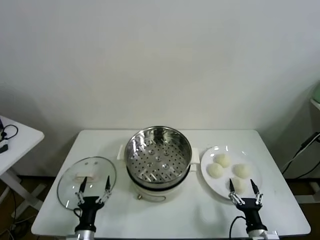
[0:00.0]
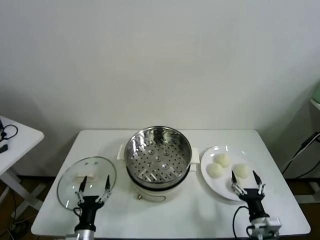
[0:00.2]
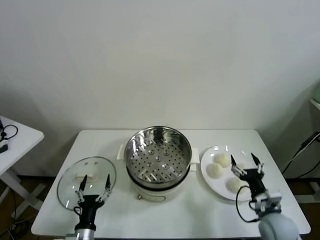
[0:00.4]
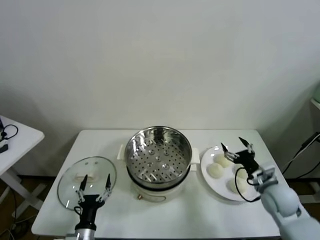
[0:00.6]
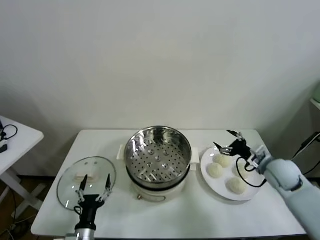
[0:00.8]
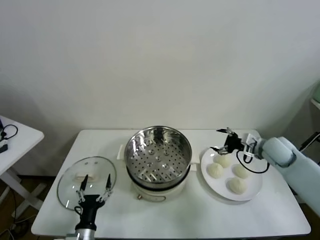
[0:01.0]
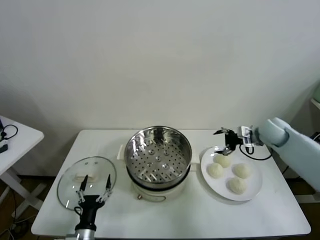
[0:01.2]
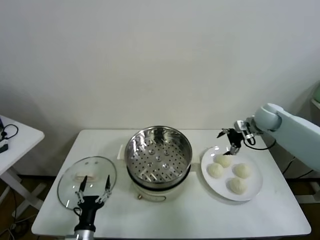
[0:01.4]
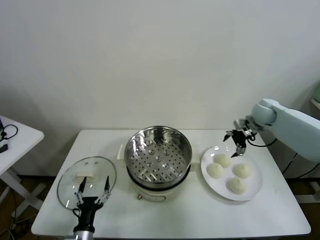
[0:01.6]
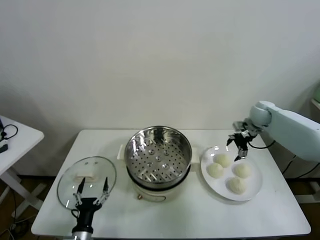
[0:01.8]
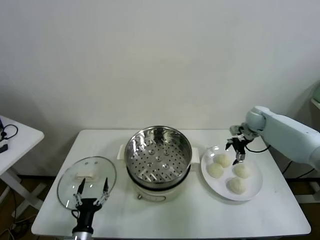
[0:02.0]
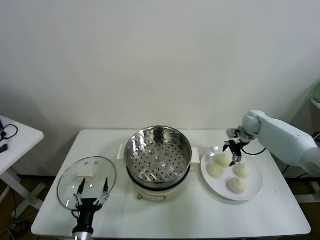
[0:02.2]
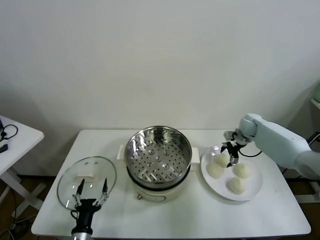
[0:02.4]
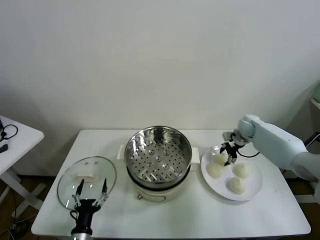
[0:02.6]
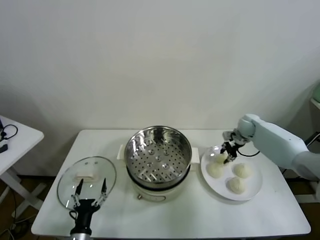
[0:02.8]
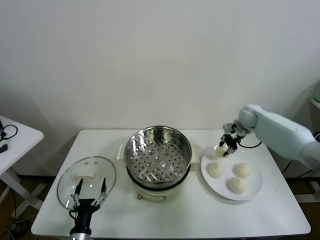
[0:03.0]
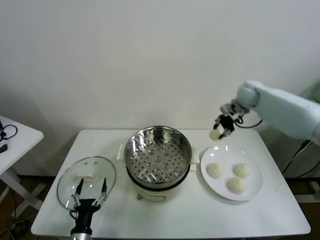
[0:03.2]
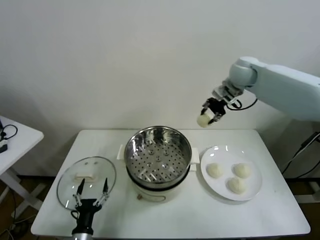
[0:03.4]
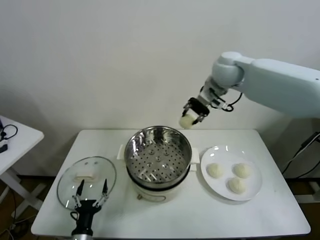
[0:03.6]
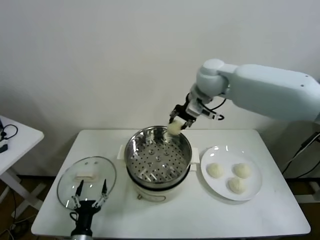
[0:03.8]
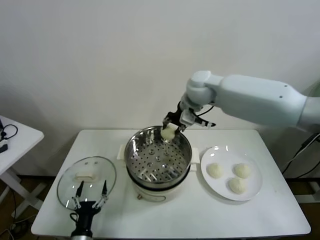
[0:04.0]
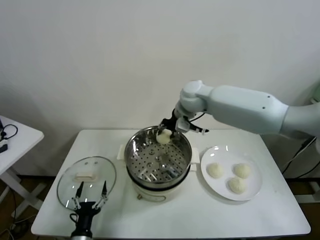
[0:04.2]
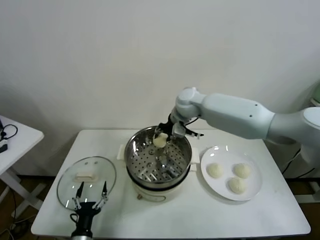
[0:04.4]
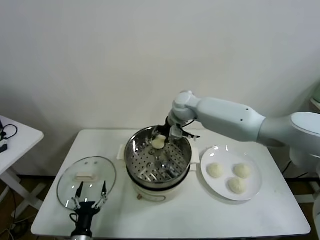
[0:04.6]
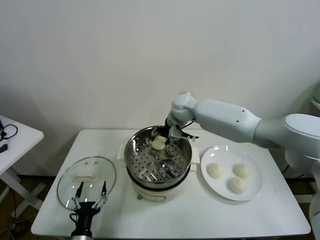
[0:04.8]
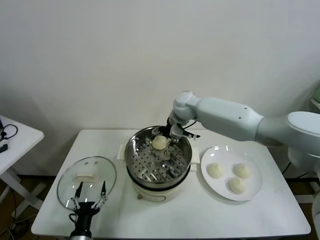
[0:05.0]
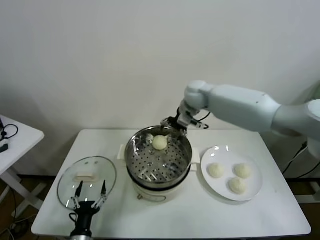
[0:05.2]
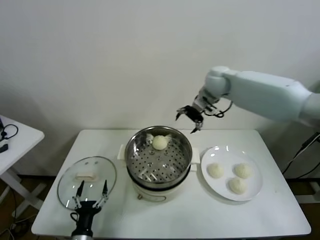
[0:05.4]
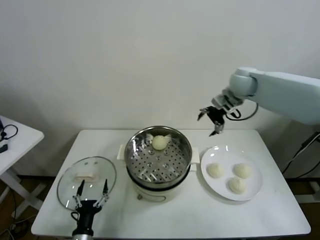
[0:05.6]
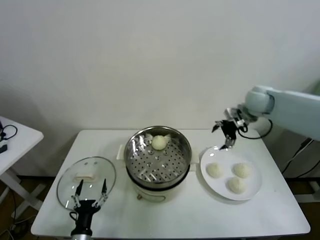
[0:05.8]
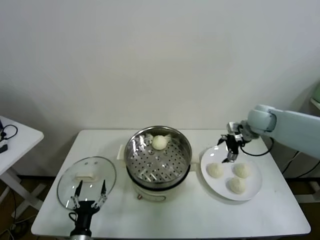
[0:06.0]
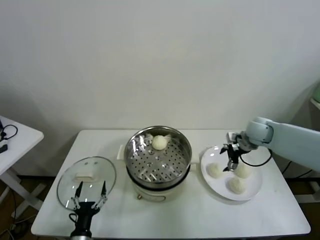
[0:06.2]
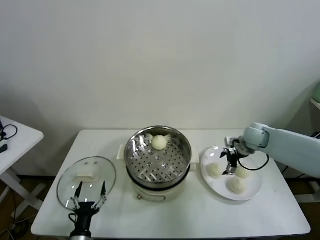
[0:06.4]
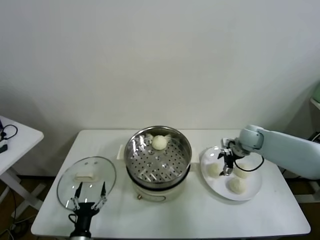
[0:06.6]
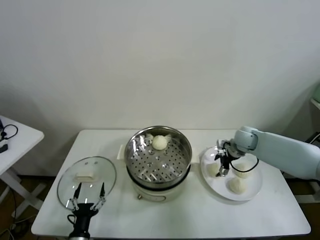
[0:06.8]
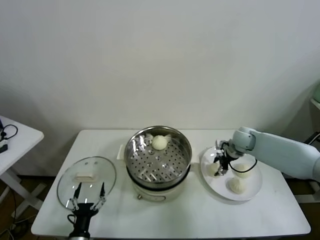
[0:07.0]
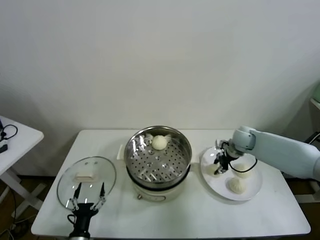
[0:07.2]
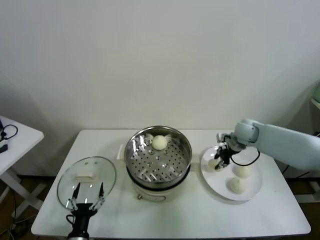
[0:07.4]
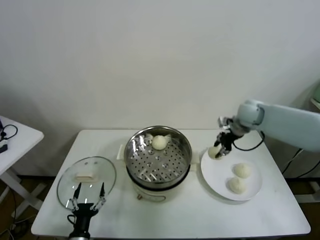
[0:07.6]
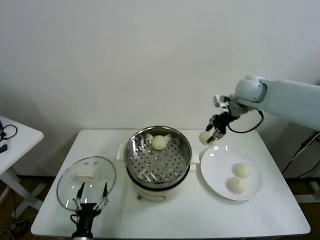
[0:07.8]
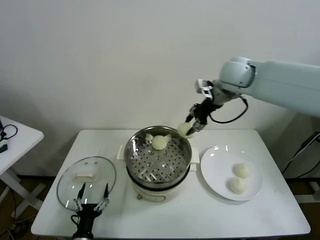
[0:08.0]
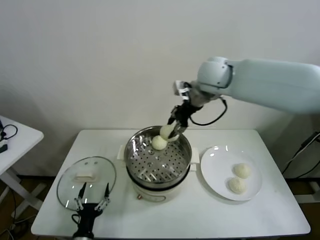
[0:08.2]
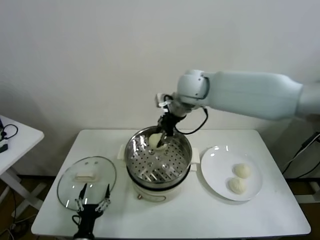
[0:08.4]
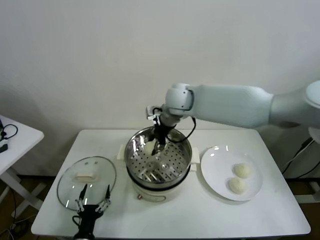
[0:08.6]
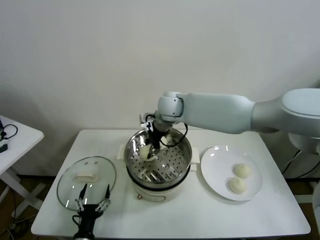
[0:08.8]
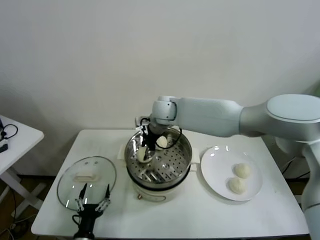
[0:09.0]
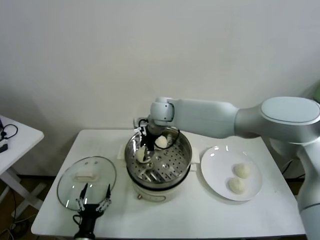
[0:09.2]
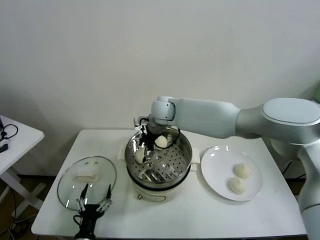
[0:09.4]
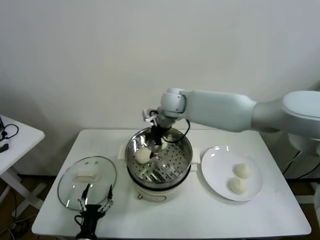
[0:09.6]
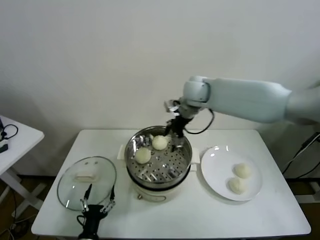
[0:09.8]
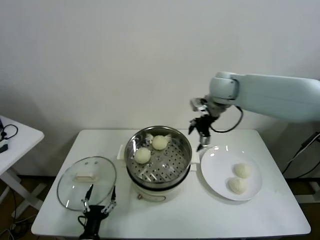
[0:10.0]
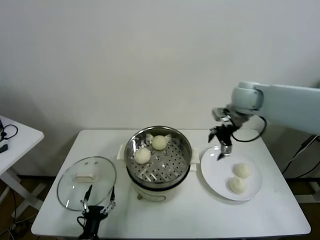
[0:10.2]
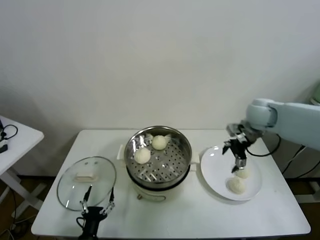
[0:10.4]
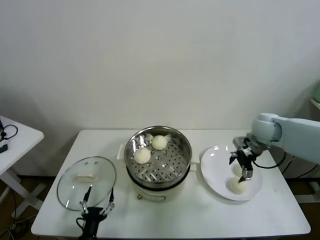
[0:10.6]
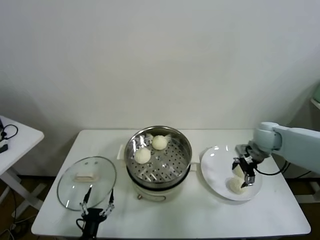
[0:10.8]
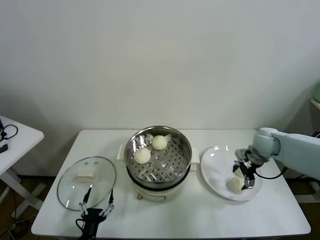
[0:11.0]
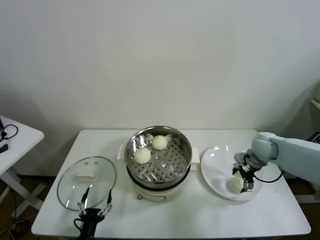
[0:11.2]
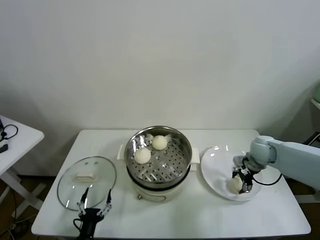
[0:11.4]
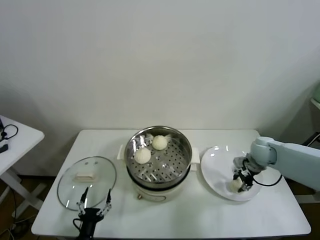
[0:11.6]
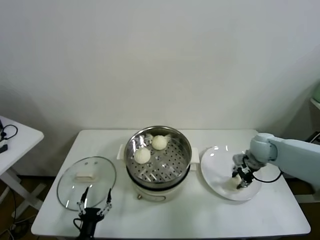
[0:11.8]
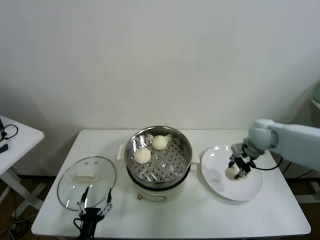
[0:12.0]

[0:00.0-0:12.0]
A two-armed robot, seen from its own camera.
Task of the whole recording: take steamed baozi put them in steamer.
Step, 0:00.0 to 0:02.4: Grasp the baozi in the plate with right gripper.
Step, 0:02.6 to 0:04.8: Place the baozi on the steamer with right gripper.
Step, 0:05.0 to 0:07.0: Grasp the baozi in the plate with right gripper.
Step, 0:07.2 to 0:09.2: Place the baozi on the steamer with right gripper.
Step, 0:09.6 to 0:11.4: Grasp the baozi in the plate with right gripper.
0:01.6 to 0:03.0: The right gripper travels downward and back again, some 10 cm each way, and closes its fingers.
0:03.0 to 0:04.4: The right gripper is displaced to the left by approximately 25 cm.
0:04.4 to 0:06.0: The right gripper is displaced to the right by approximately 25 cm, and opens its fingers.
0:06.0 to 0:07.6: The right gripper heads upward, covering some 5 cm, and closes up.
0:07.6 to 0:09.0: The right gripper travels to the left by about 30 cm.
0:09.0 to 0:10.4: The right gripper shifts approximately 30 cm to the right, and opens up.
0:10.4 to 0:12.0: The right gripper goes about 5 cm downward, and closes up.

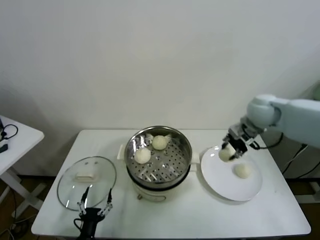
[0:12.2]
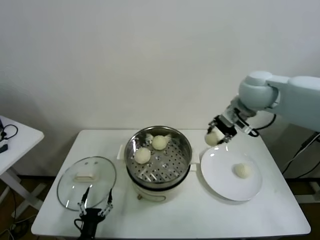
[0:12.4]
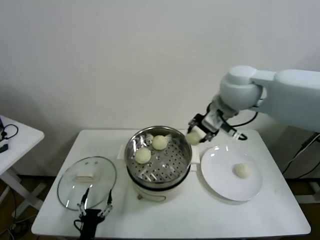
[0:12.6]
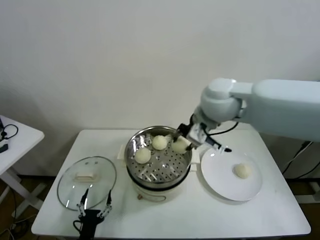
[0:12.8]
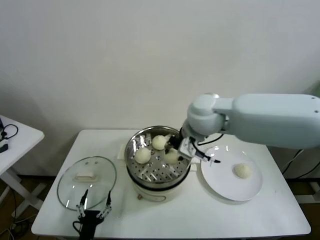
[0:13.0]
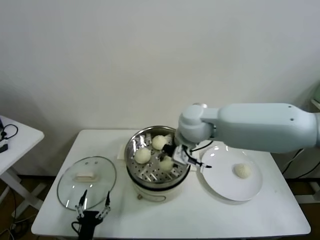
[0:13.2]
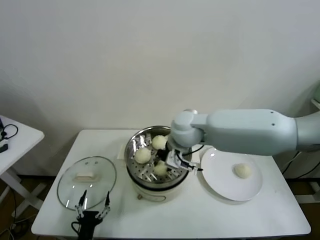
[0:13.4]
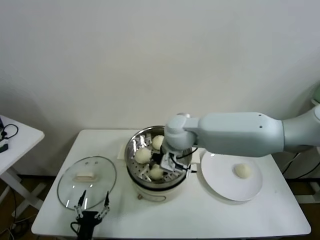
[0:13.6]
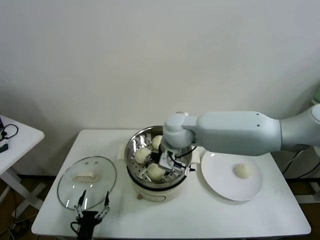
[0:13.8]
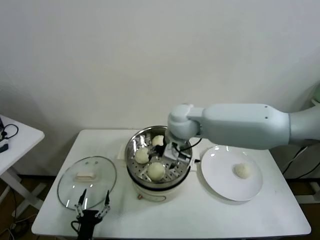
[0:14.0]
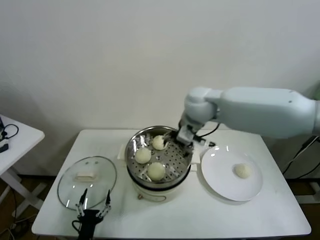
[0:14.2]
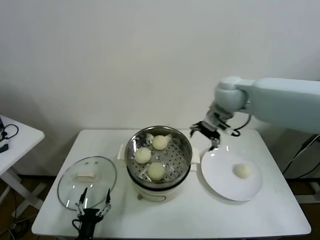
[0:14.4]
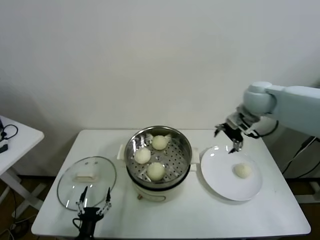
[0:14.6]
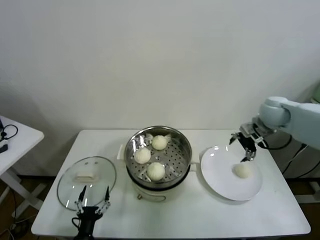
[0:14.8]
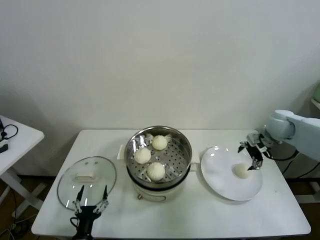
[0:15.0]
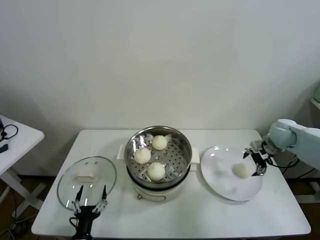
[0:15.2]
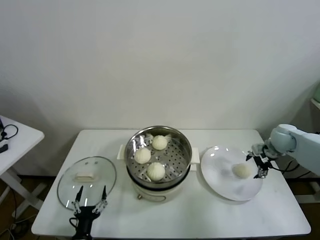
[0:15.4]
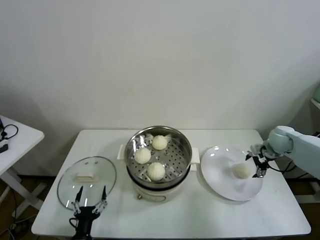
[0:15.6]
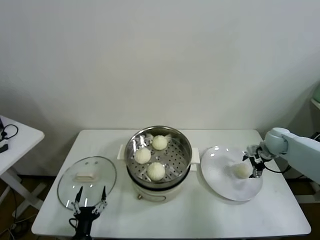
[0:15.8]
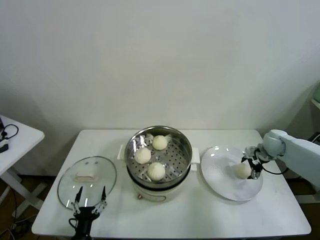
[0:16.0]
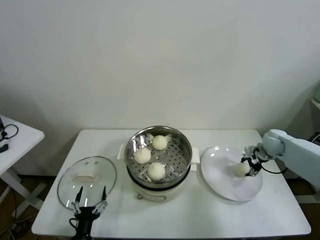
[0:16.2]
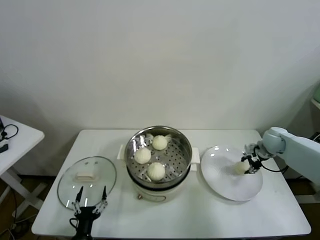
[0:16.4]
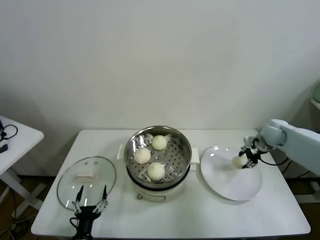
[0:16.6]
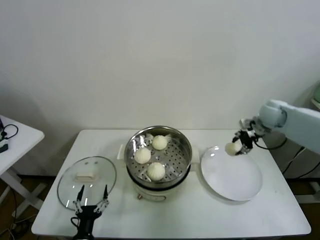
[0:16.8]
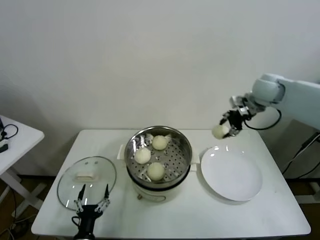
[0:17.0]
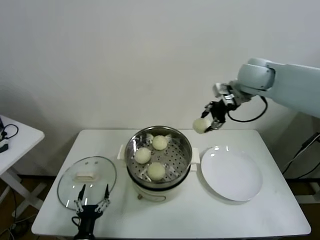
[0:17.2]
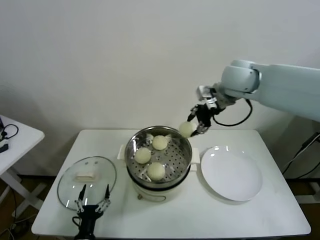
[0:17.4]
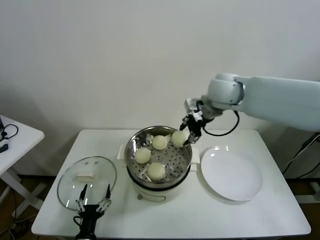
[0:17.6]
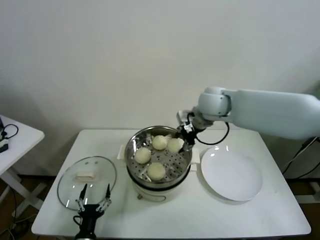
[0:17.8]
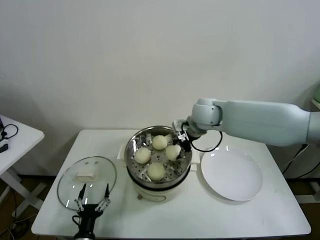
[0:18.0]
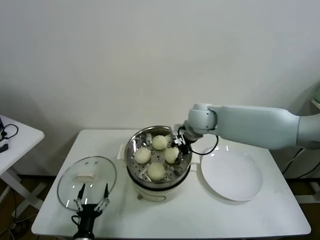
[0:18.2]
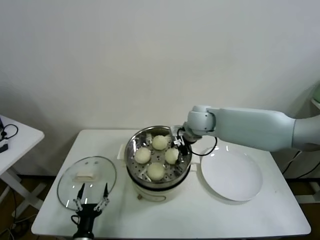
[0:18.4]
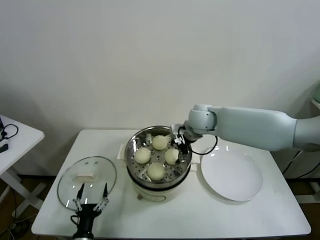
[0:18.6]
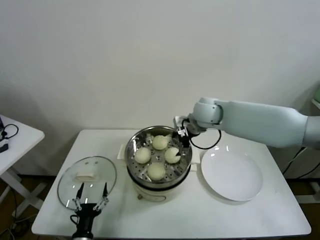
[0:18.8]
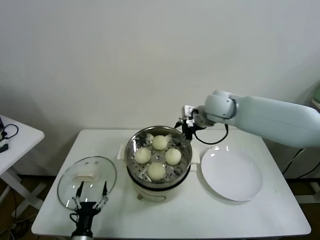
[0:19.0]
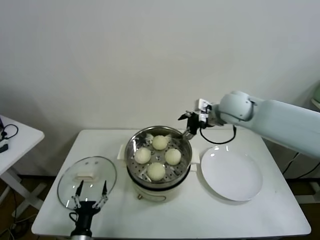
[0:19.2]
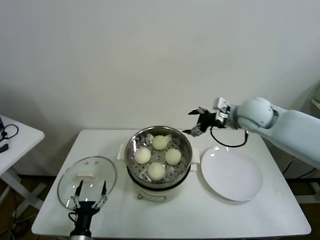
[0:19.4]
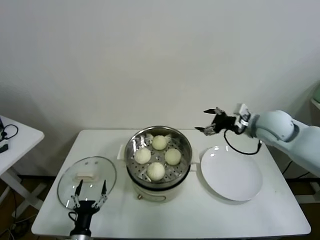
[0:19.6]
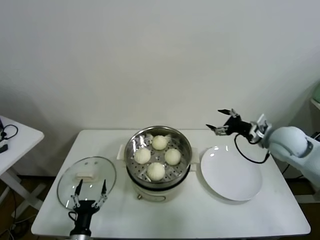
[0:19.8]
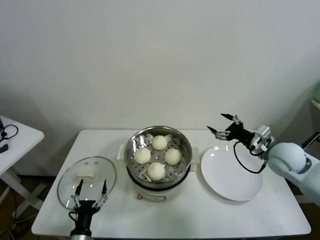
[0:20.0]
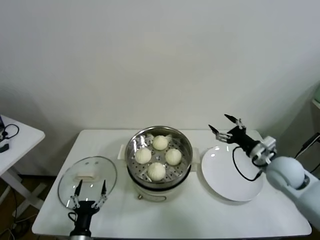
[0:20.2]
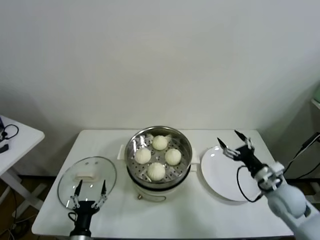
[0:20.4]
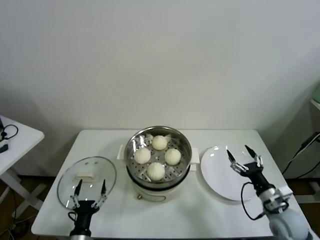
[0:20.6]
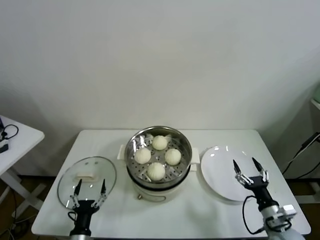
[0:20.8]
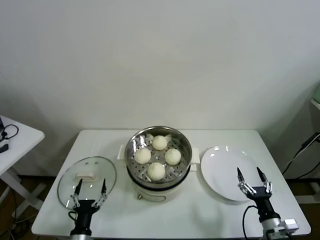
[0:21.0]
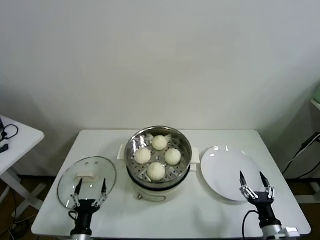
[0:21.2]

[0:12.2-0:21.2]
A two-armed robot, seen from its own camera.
Task of the whole recording: take steamed baozi put them in steamer.
Step, 0:12.2 to 0:13.8: Place the baozi on the steamer with right gripper.
Step, 0:14.0 to 0:16.0: Grasp the baozi in the plate with right gripper.
Step, 0:16.2 to 0:18.4: Place the baozi on the steamer with right gripper.
0:12.2 to 0:13.8: The right gripper moves to the left, about 25 cm, and opens.
0:13.8 to 0:15.2: The right gripper travels to the right by roughly 40 cm.
0:15.2 to 0:16.6: The right gripper closes up.
0:16.6 to 0:18.2: The right gripper moves to the left, about 30 cm.
0:18.2 to 0:19.8: The right gripper heads to the right, covering about 25 cm, and opens its fingers.
0:19.8 to 0:21.2: The right gripper goes approximately 35 cm downward and backward.
